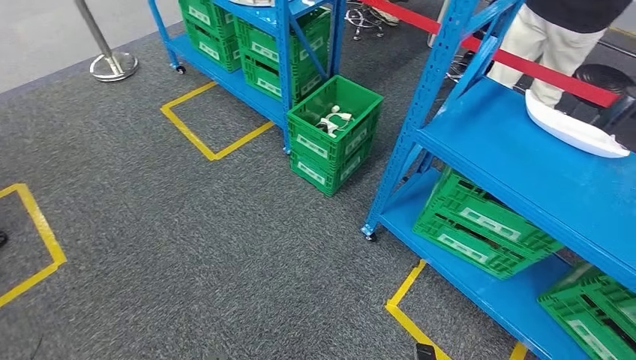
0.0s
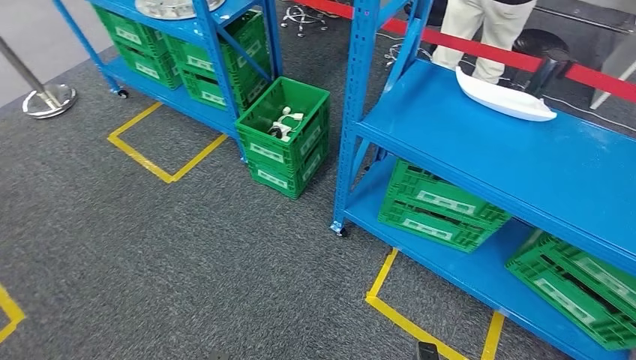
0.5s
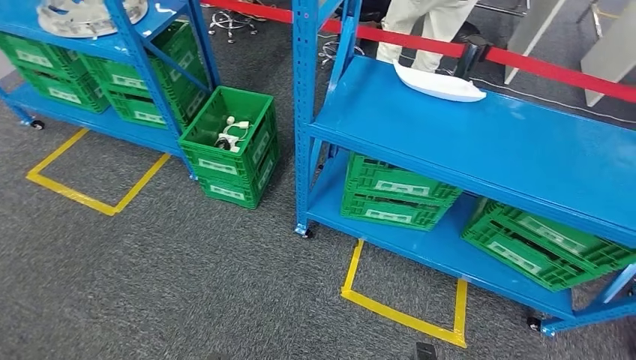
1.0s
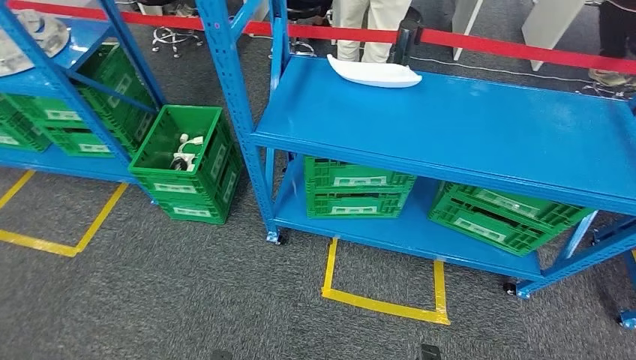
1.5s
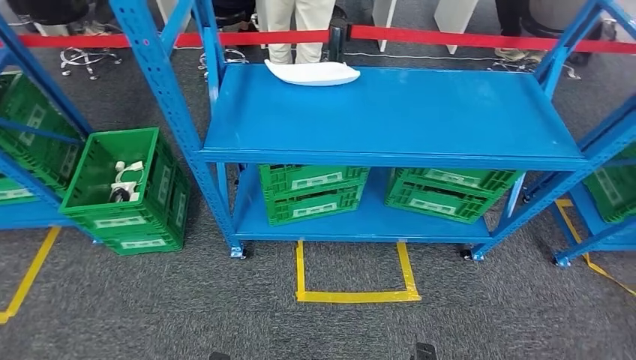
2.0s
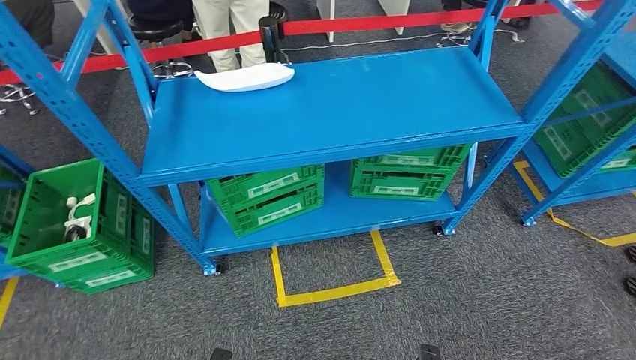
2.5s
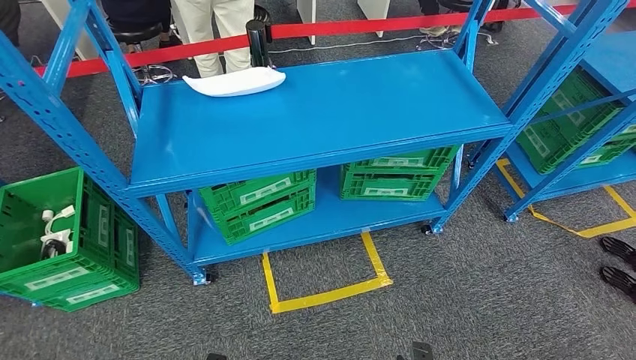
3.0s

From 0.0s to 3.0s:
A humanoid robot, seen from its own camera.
Step, from 0.0s to 3.0s: Move to the initial position of the workbench.

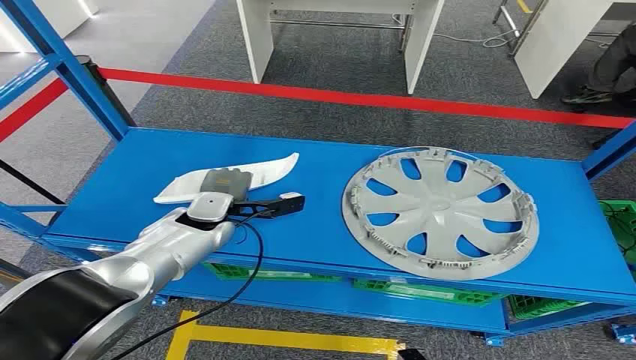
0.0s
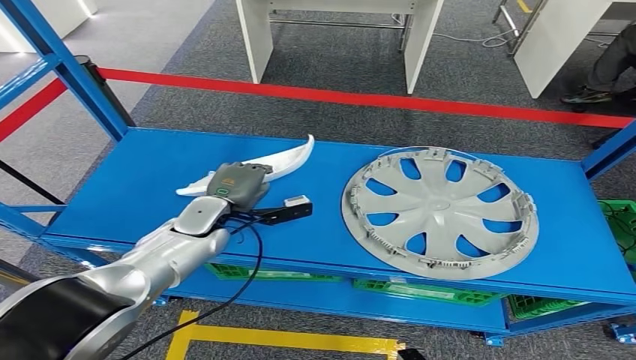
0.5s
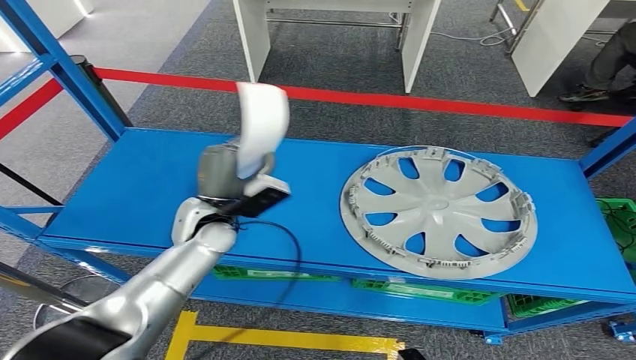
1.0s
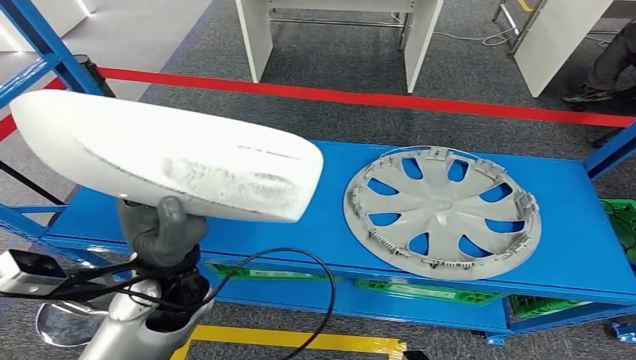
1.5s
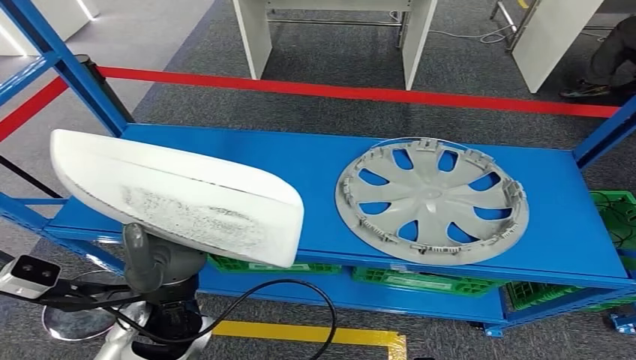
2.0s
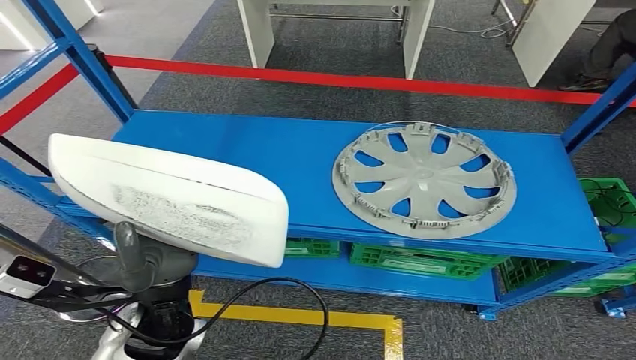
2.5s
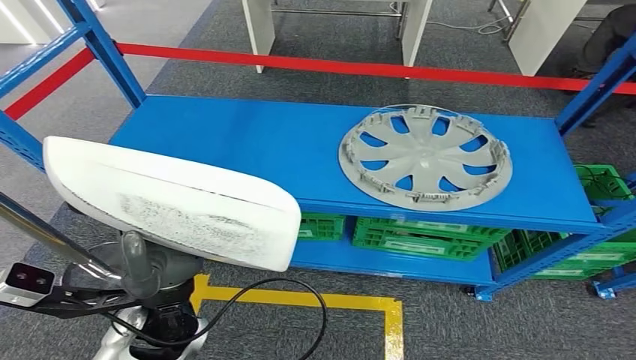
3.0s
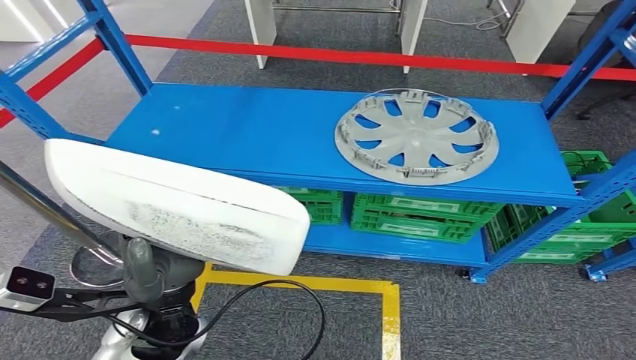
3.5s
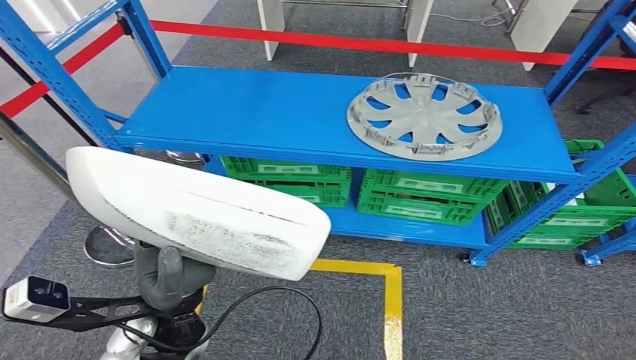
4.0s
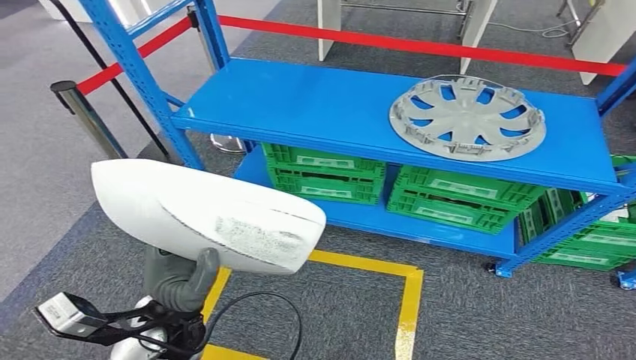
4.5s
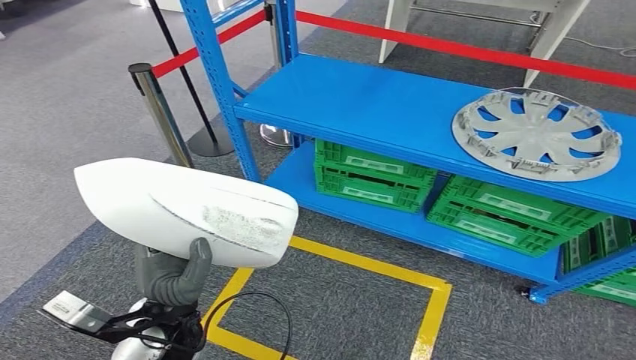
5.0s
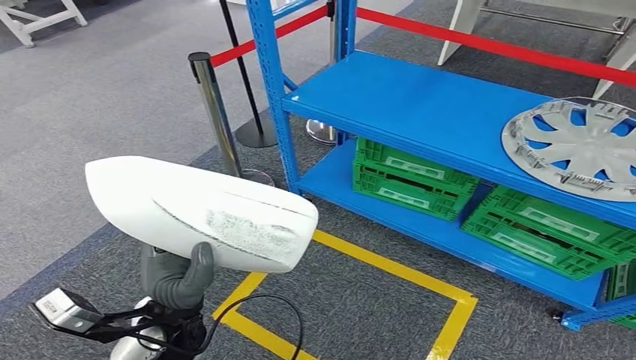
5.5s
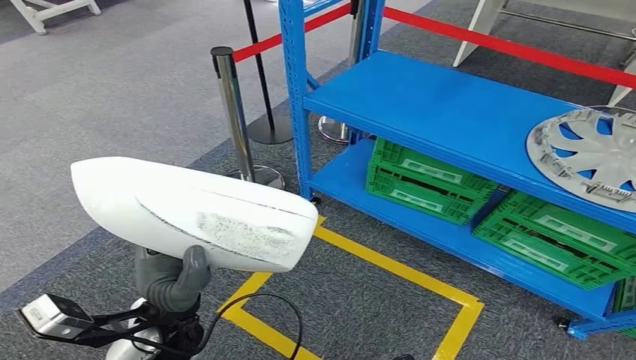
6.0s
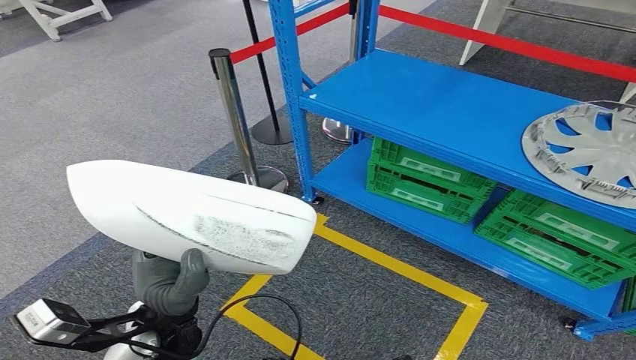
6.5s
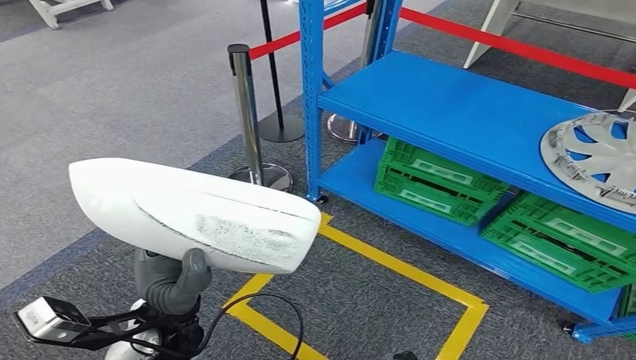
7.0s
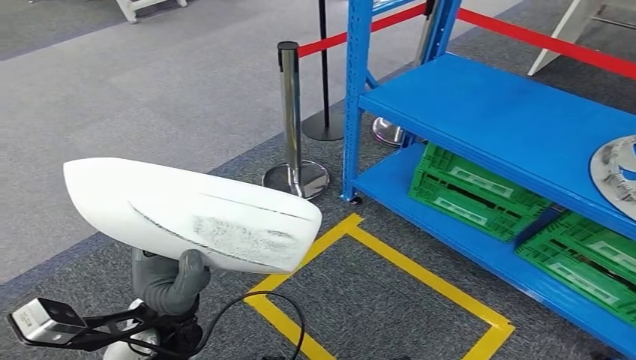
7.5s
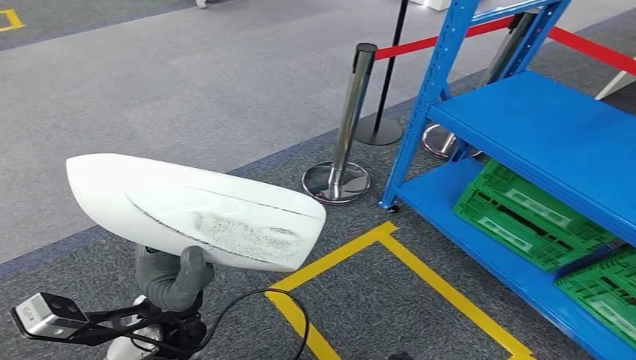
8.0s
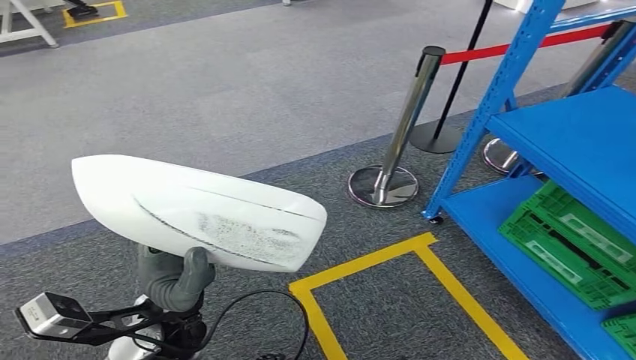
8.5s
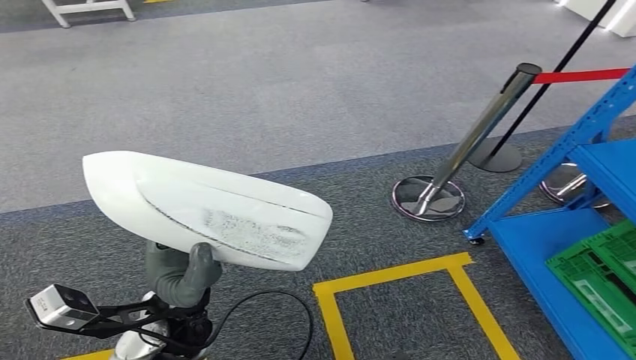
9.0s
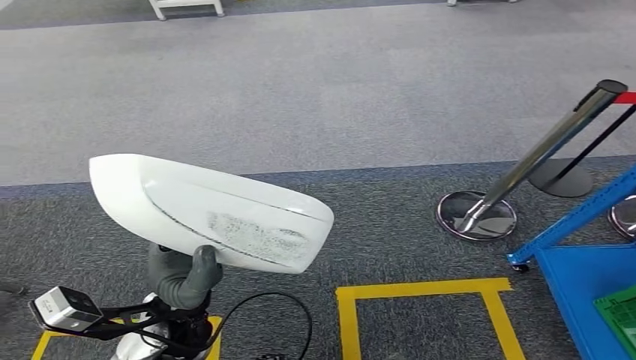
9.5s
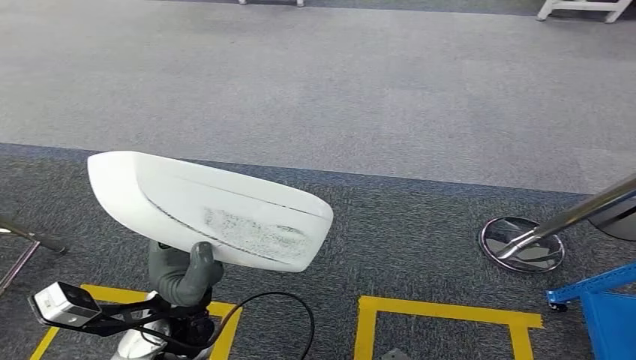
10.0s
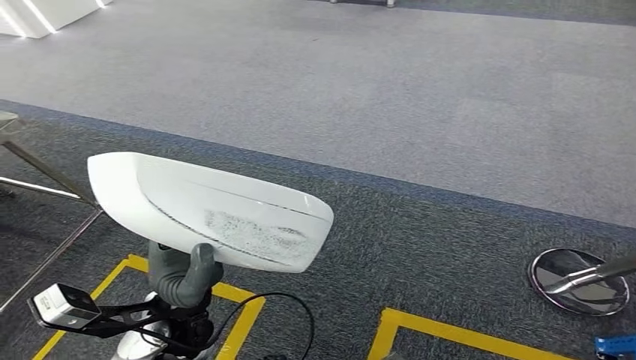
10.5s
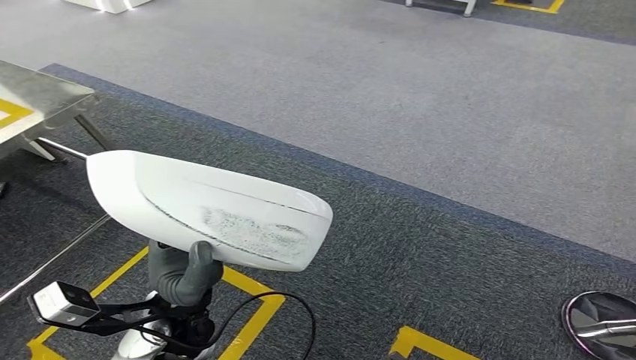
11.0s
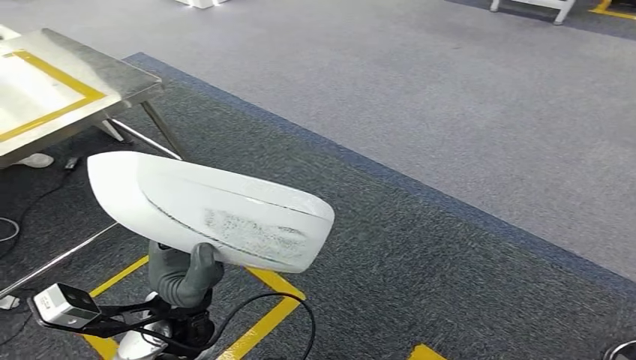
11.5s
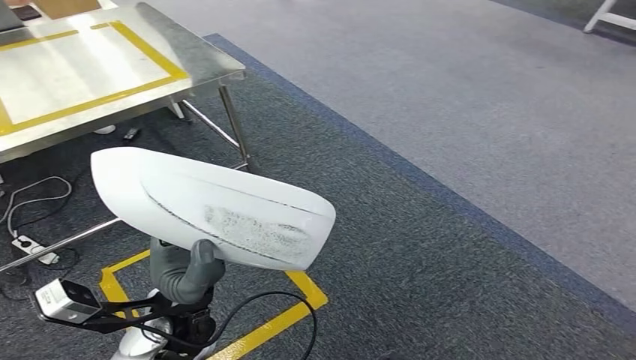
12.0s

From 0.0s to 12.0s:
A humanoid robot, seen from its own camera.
Step, from 0.0s to 1.0s: Pick up the small component from the shelf.

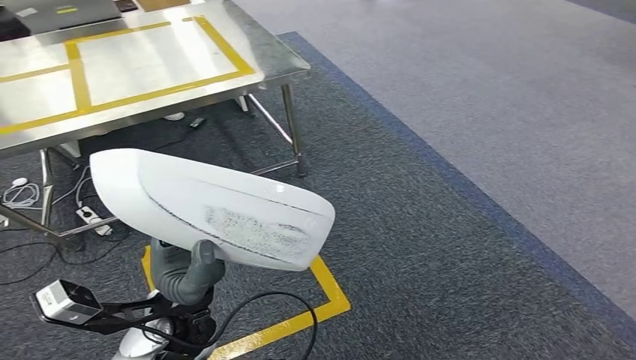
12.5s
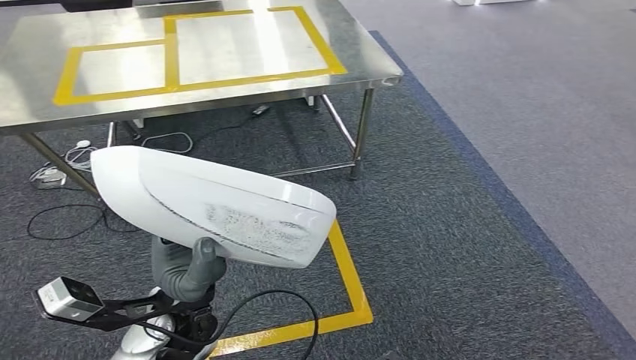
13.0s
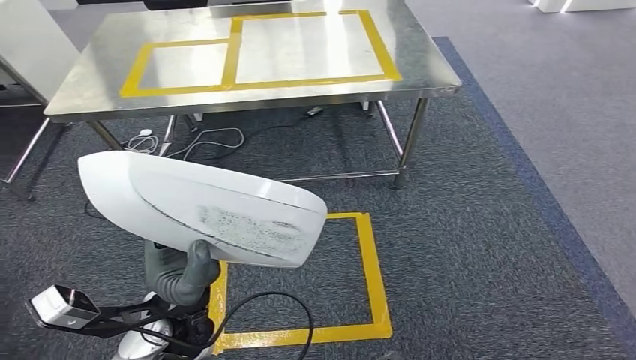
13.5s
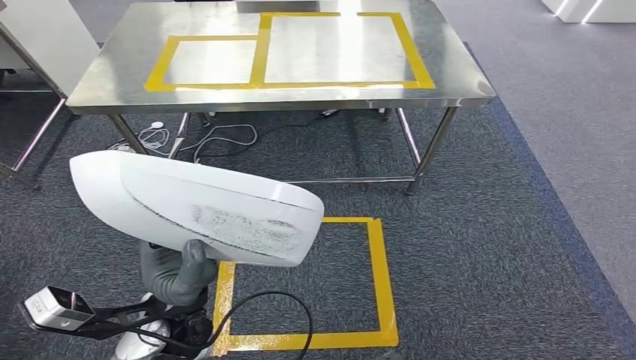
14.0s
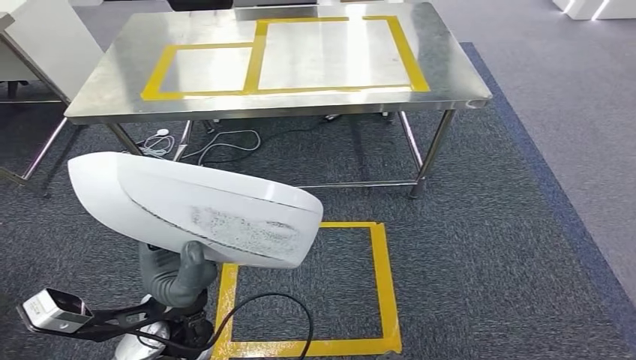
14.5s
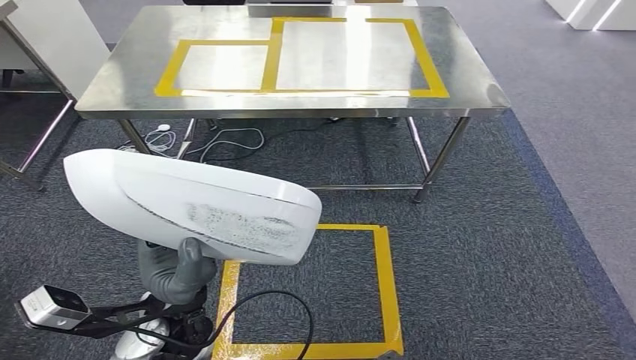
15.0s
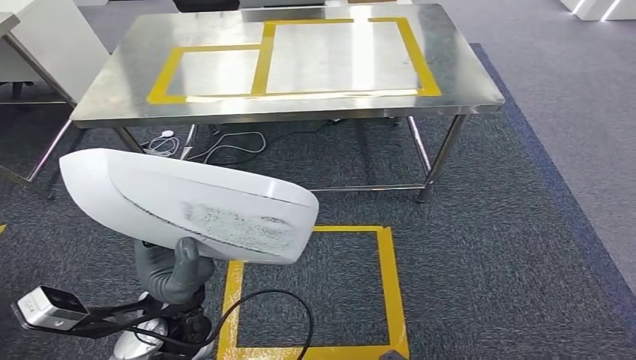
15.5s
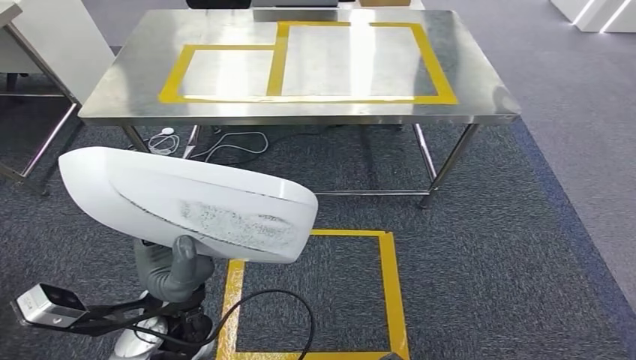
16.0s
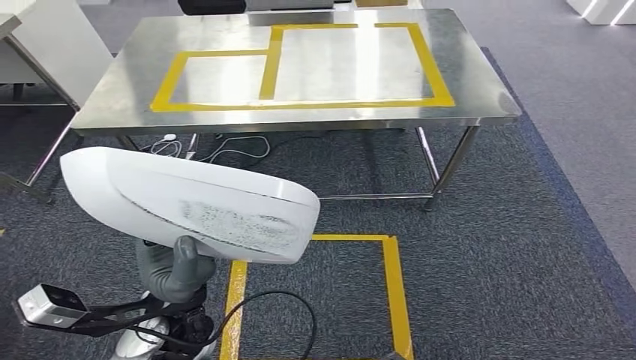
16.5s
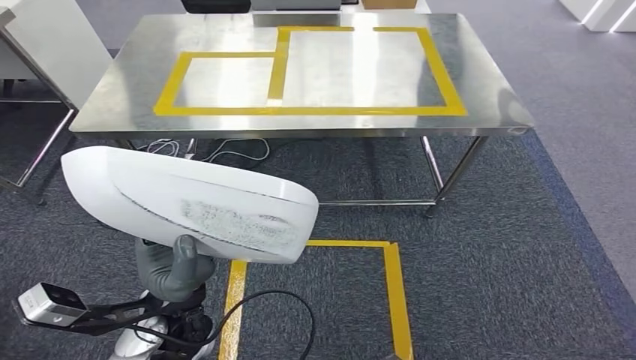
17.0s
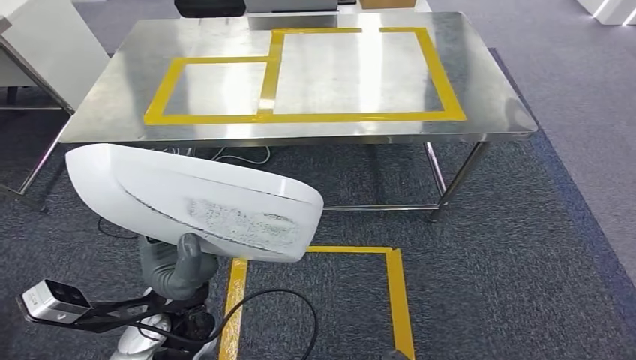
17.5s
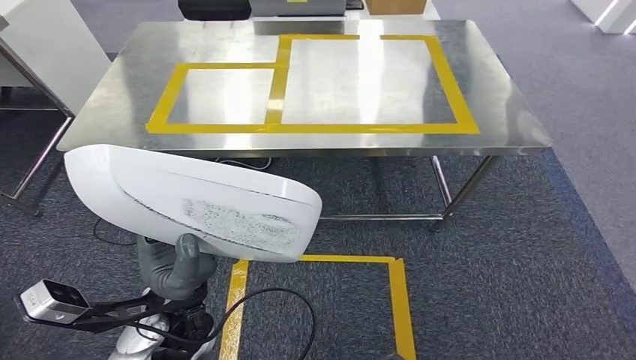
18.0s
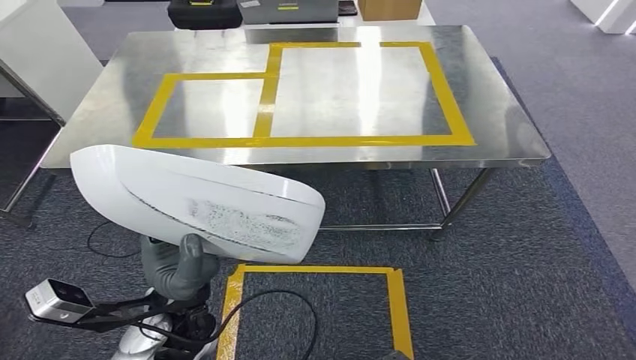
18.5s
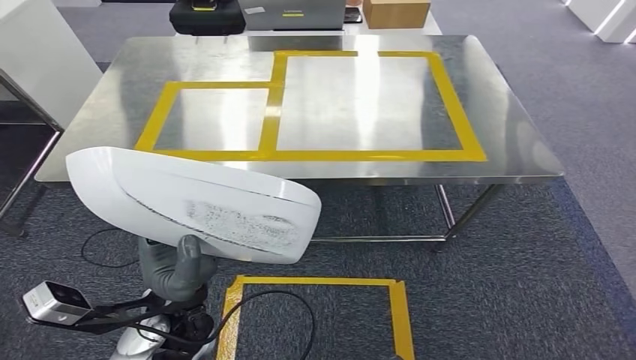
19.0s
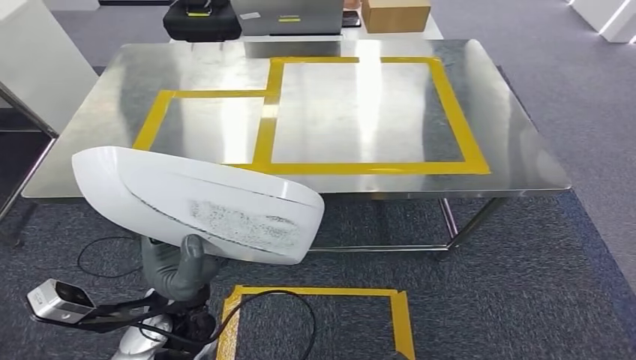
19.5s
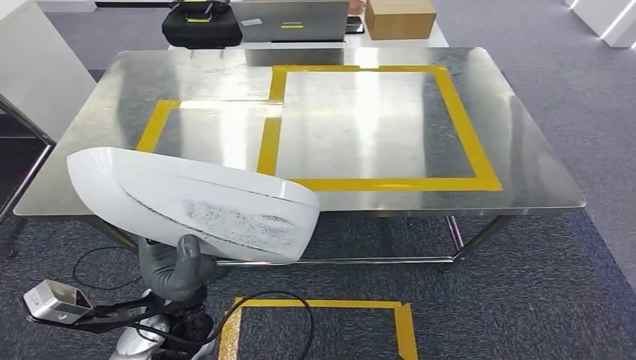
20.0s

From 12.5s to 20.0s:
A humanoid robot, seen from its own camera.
Step, from 12.5s to 19.0s: Bring the small component to the front of the workbench.
